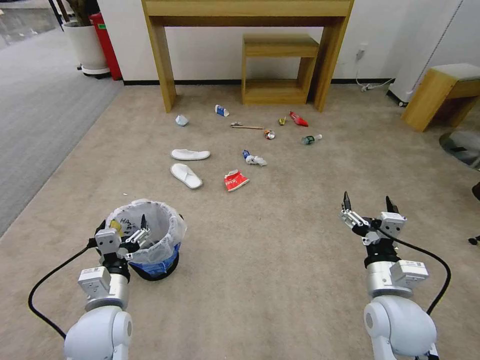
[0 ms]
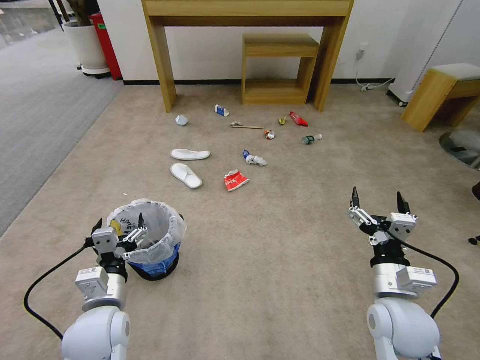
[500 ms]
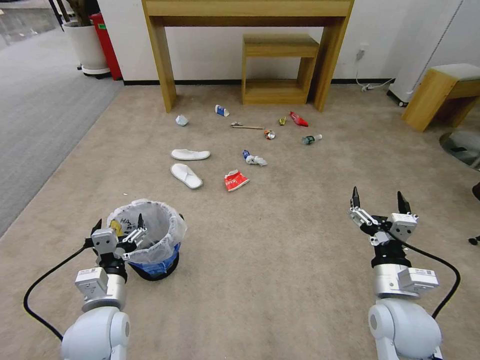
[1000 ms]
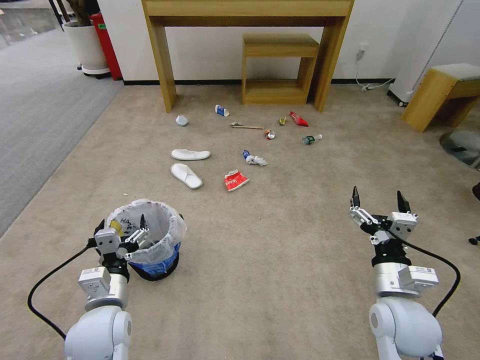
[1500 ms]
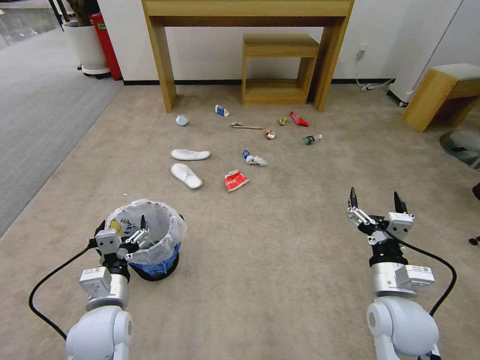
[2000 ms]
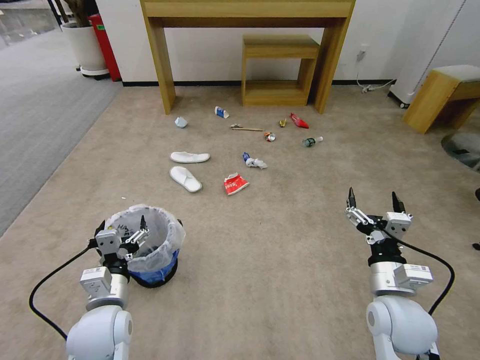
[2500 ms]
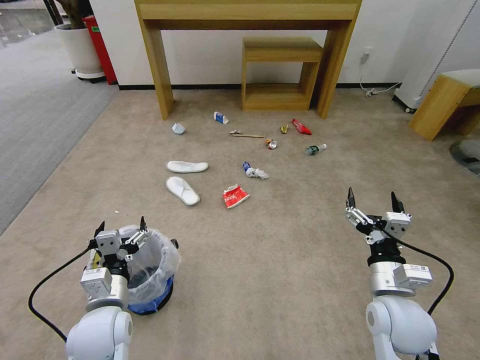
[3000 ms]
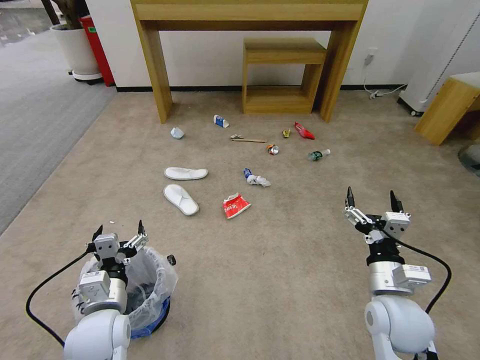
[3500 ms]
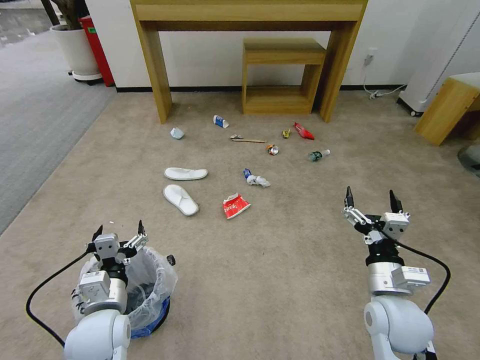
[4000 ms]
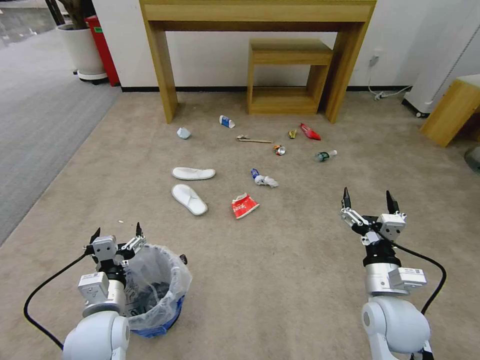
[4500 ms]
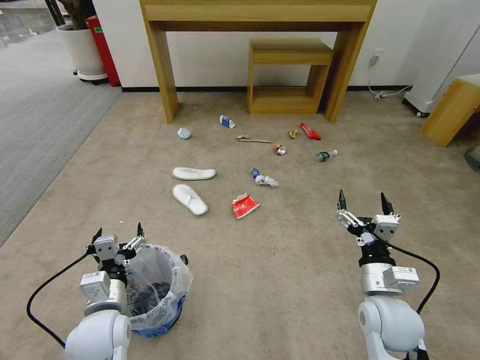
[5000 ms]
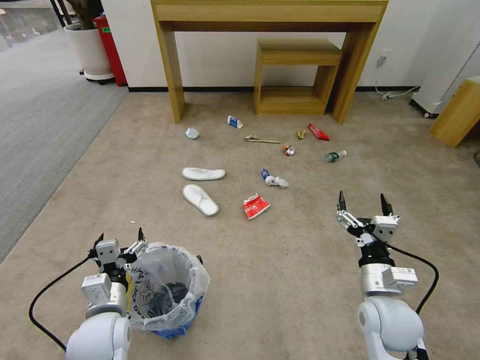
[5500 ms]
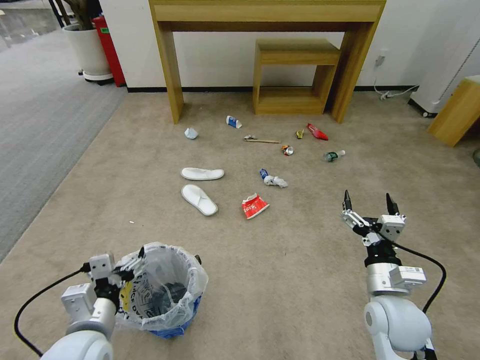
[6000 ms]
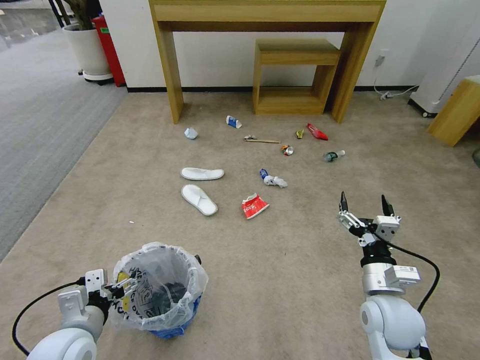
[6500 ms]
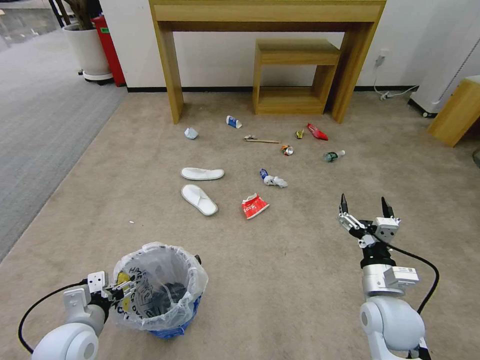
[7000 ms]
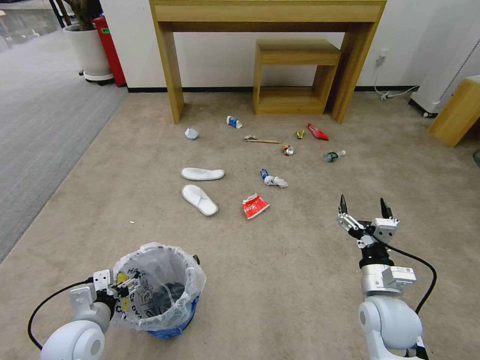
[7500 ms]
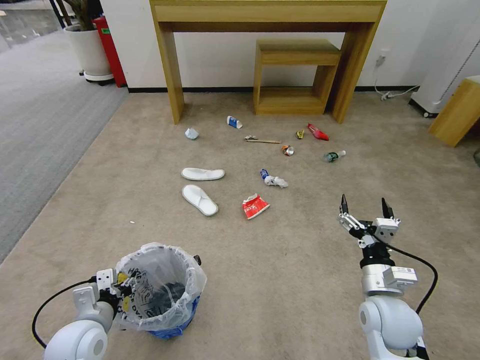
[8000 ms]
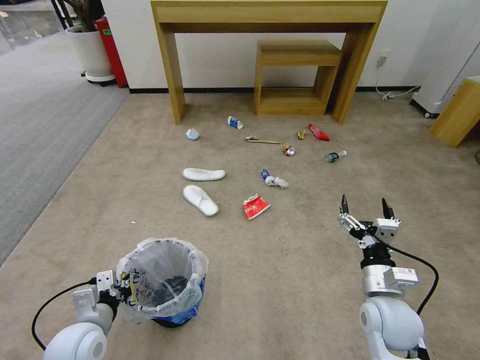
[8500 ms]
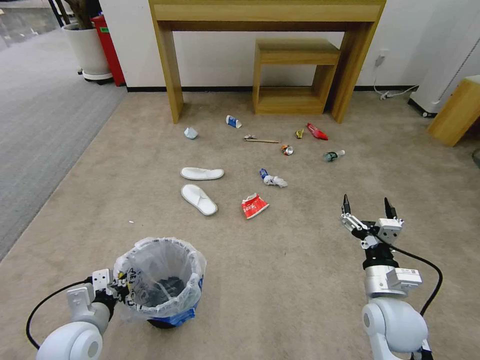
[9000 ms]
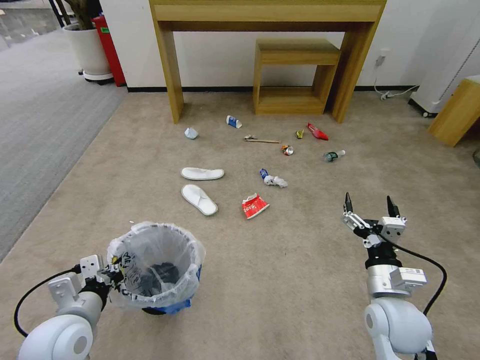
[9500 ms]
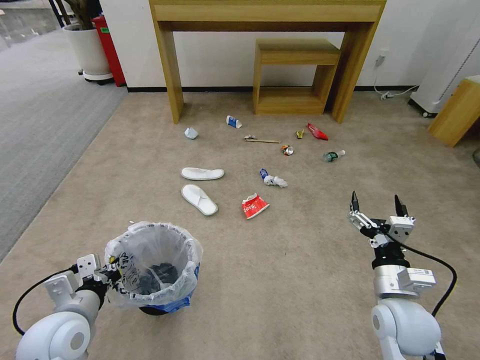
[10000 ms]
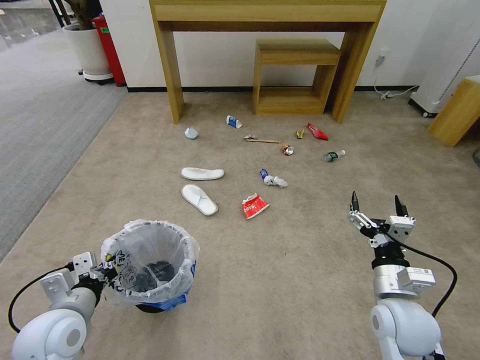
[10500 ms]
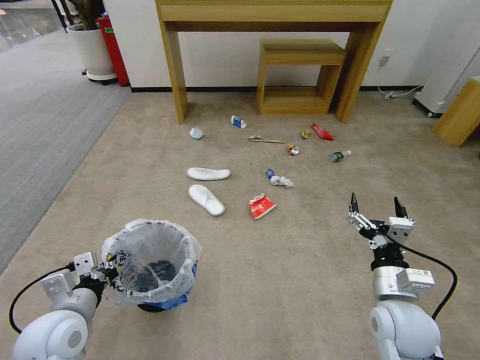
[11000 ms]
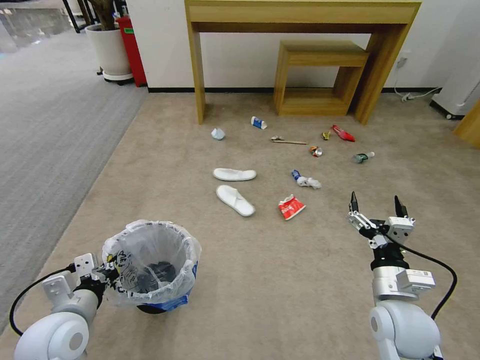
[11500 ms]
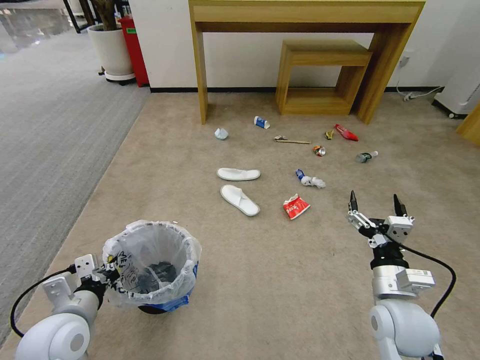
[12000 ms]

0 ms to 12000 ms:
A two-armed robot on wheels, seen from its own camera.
Task of the whole recording: Pick up the trash bin and place the garbage on the floor into it.
4000 ms to 6000 ms: The left gripper moves approximately 5 cm.
6000 ms to 8000 ms: The left gripper heads downward, covering roughly 5 cm, and closes up.
8000 ms to 10000 ms: The left gripper shifts approximately 5 cm upward, and closes up.
10000 ms to 12000 ms: The two grippers keep their place.

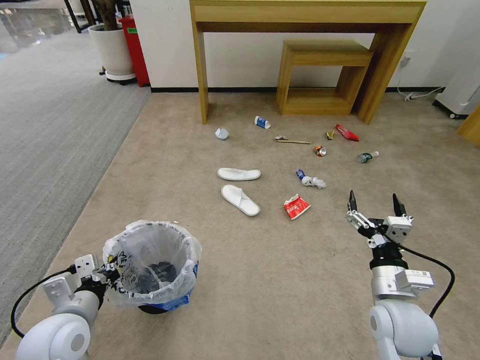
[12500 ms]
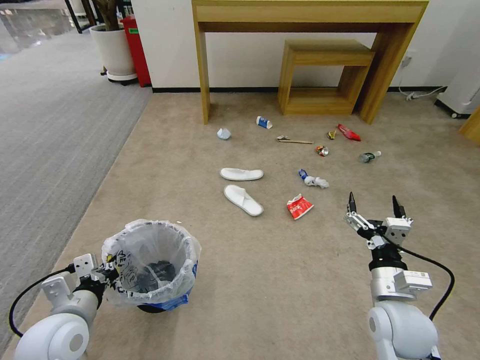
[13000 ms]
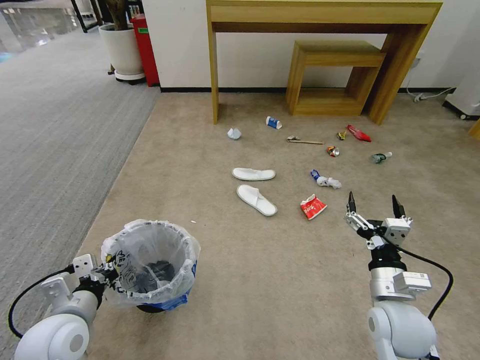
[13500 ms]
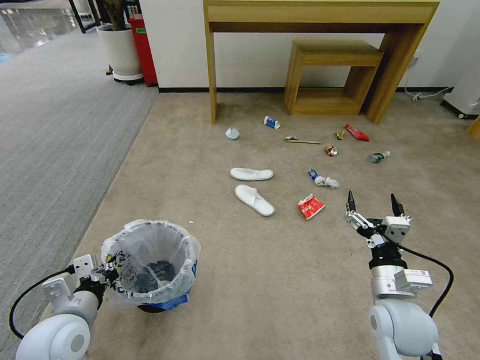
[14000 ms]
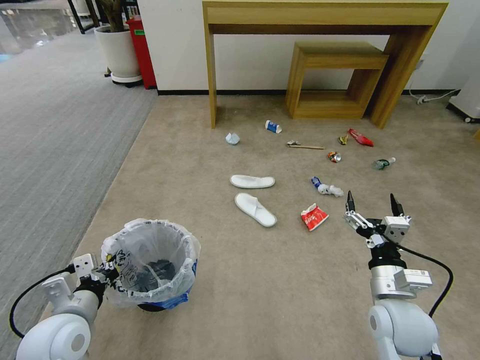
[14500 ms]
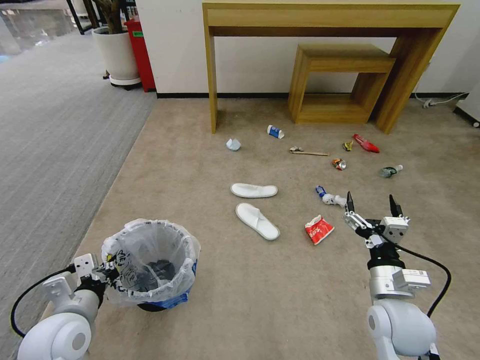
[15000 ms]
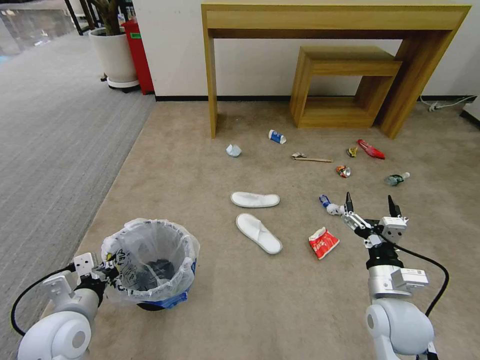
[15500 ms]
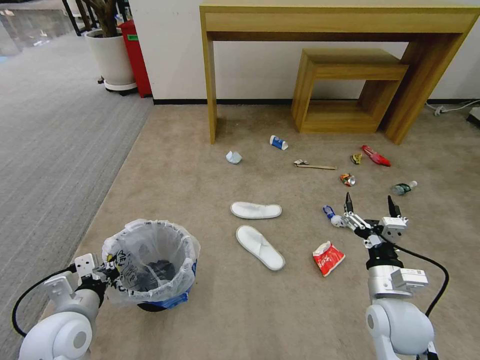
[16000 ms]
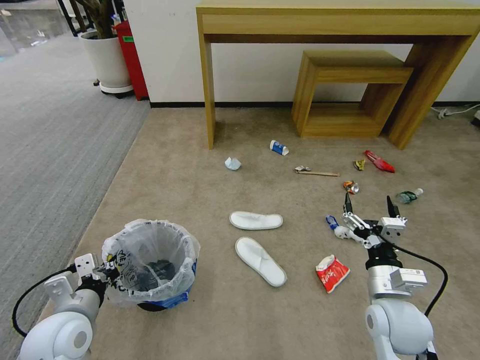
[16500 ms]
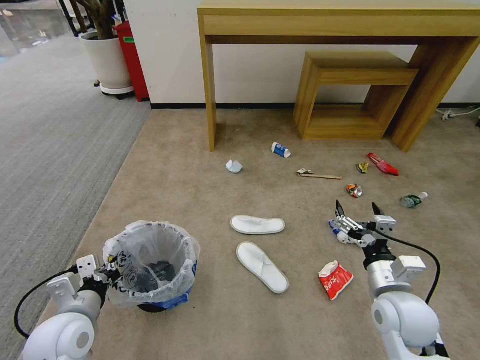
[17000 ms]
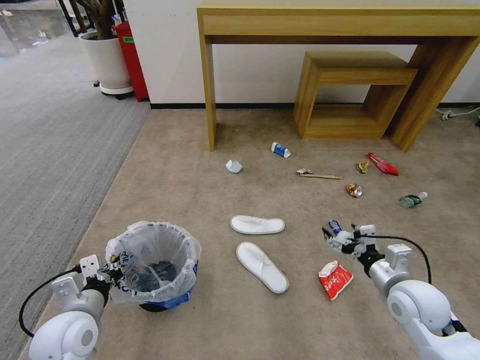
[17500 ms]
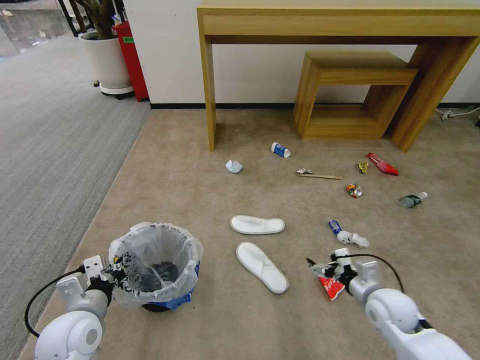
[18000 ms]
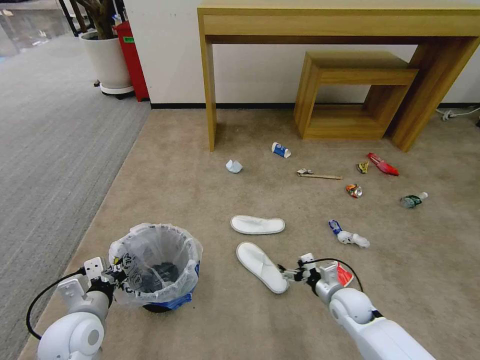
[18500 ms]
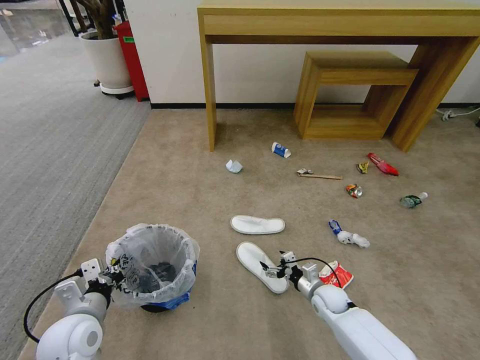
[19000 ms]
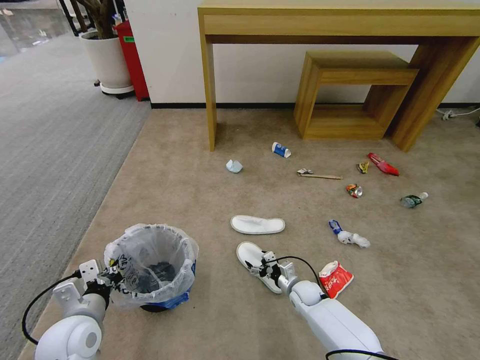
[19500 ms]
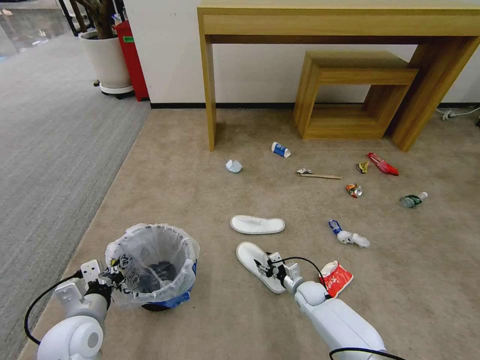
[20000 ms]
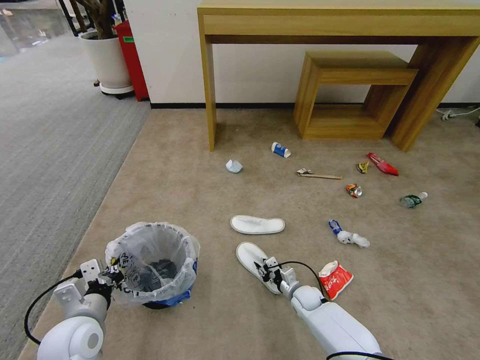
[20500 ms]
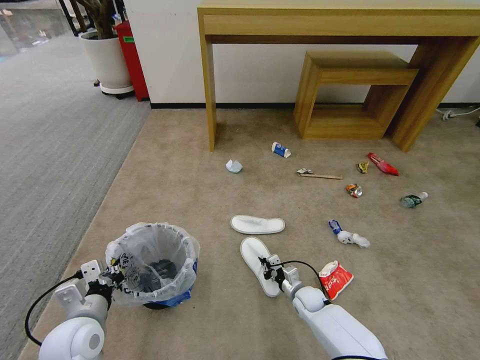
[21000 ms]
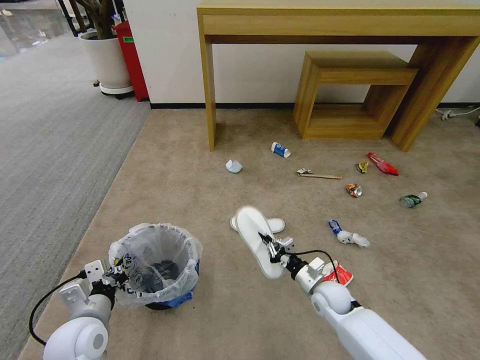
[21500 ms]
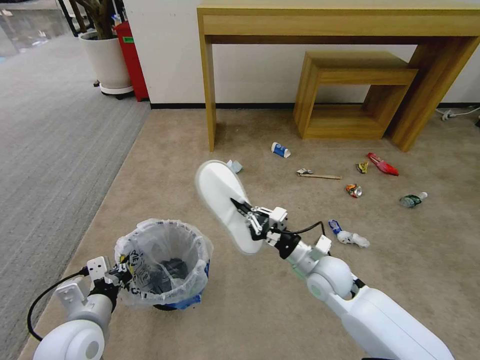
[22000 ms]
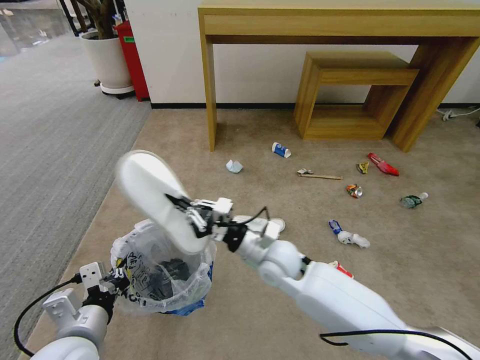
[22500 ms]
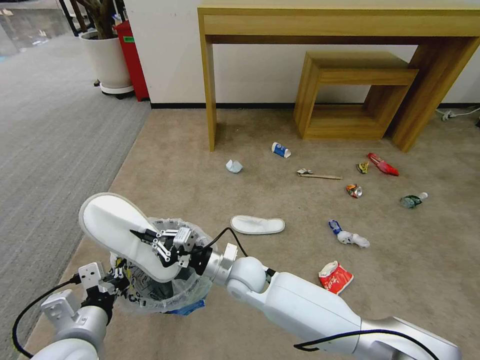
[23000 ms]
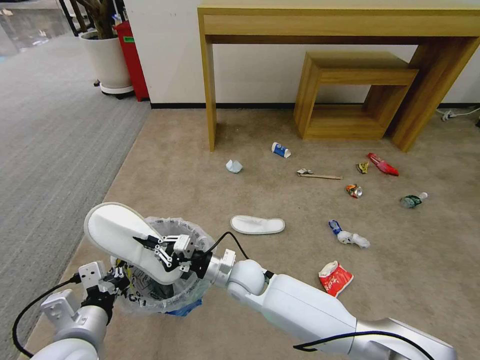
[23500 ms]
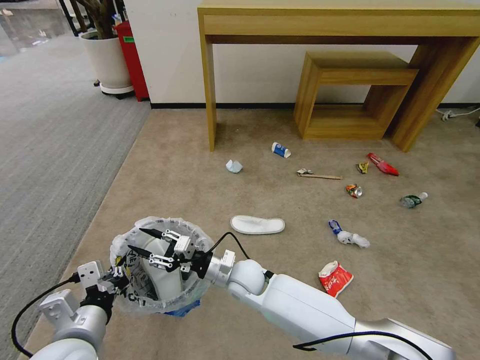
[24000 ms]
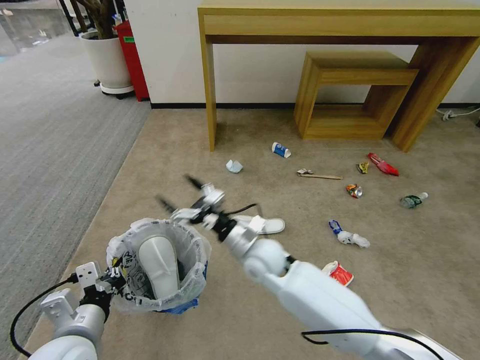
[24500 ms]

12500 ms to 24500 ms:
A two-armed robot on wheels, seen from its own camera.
Task of the whole recording: Pick up the trash bin and place the garbage on the floor into it.
12500 ms to 14500 ms: Neither gripper changes place.
16500 ms to 18500 ms: The right gripper goes about 20 cm downward and forward.
18500 ms to 20500 ms: The right gripper goes roughly 15 cm downward, to the left and forward, and closes up.
20500 ms to 22500 ms: The left gripper shifts approximately 5 cm upward, while the right gripper goes roughly 30 cm upward and to the left.
22500 ms to 24500 ms: The right gripper moves about 10 cm downward and comes back, and opens up.

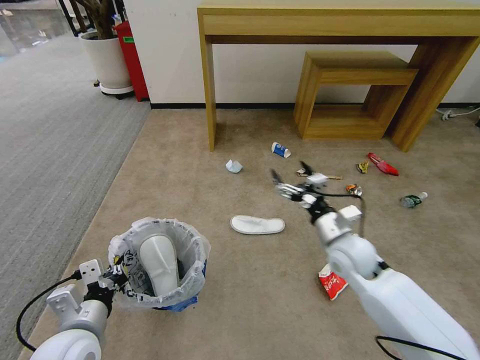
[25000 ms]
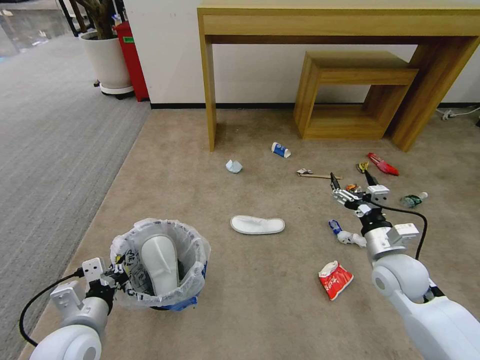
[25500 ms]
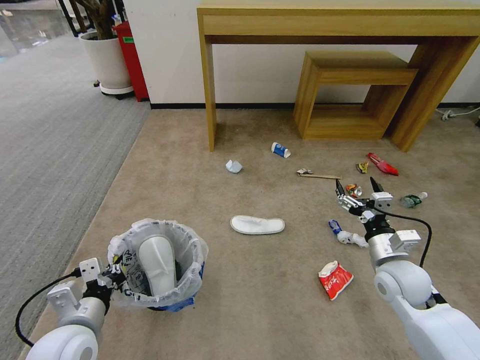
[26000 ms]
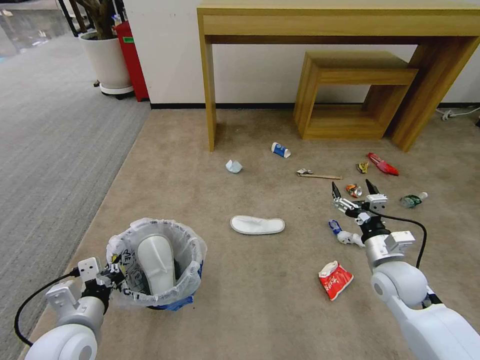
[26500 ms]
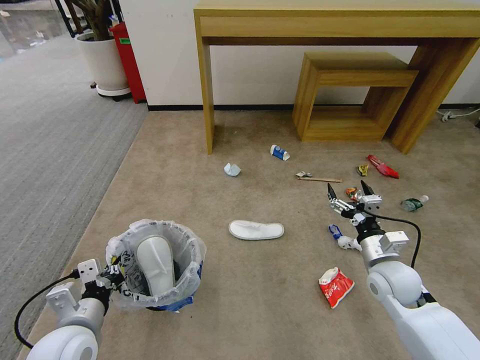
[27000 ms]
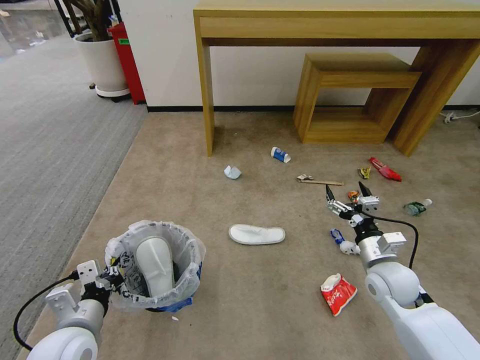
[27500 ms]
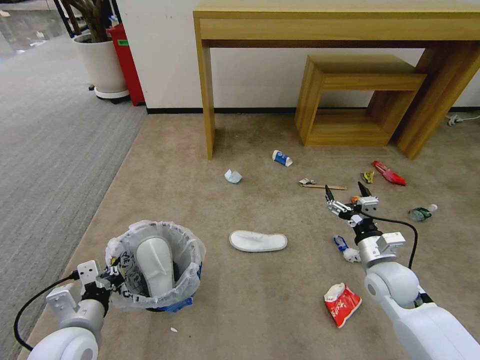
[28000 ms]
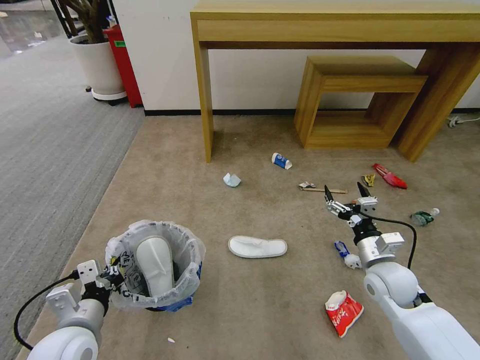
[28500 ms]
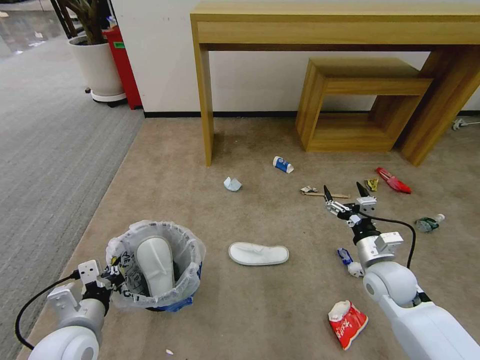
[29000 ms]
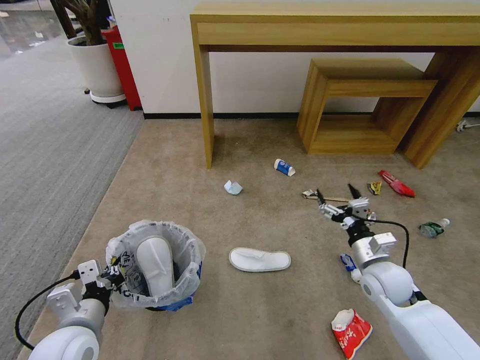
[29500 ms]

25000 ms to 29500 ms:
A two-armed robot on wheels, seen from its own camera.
Task of the whole recording: Pick up the trash bin and place the garbage on the floor into it.
25000 ms to 27000 ms: The right gripper shifts roughly 10 cm to the right.
